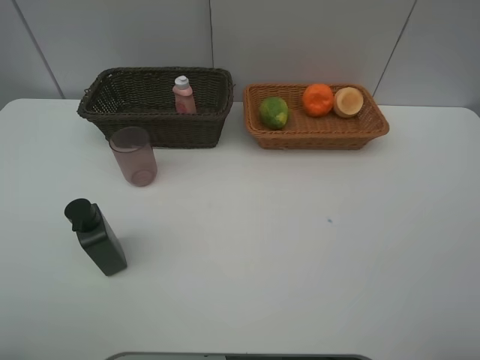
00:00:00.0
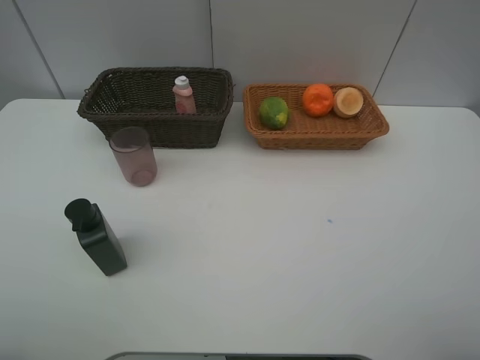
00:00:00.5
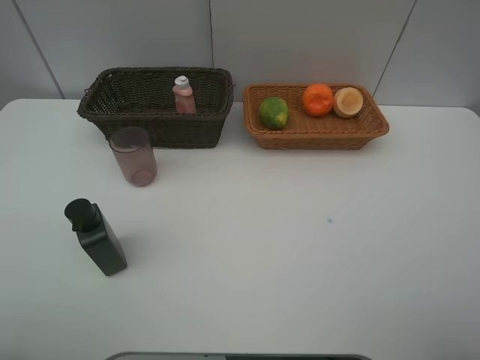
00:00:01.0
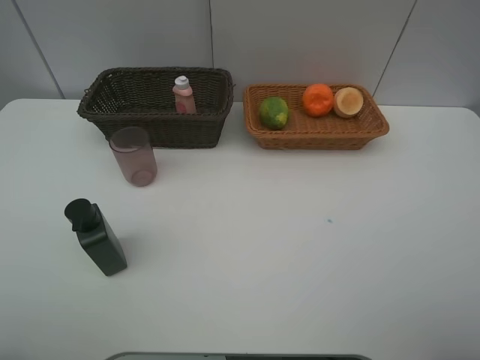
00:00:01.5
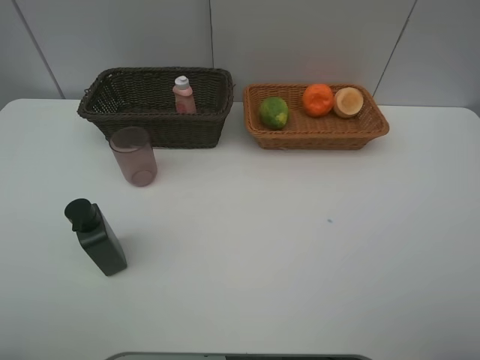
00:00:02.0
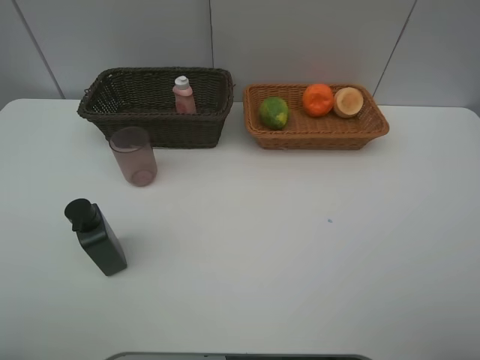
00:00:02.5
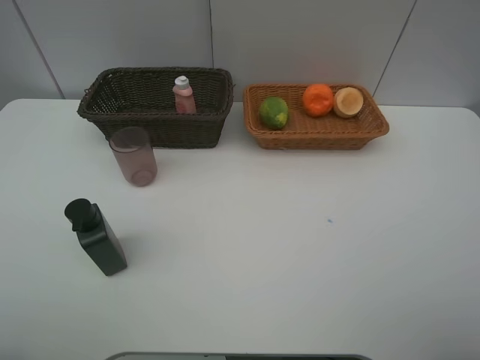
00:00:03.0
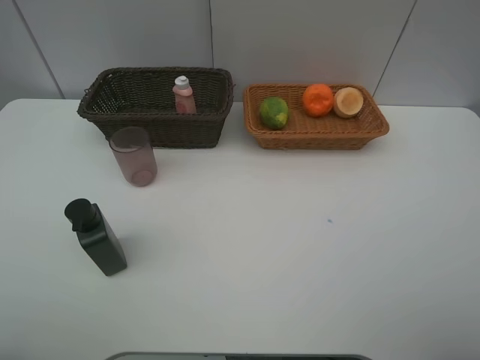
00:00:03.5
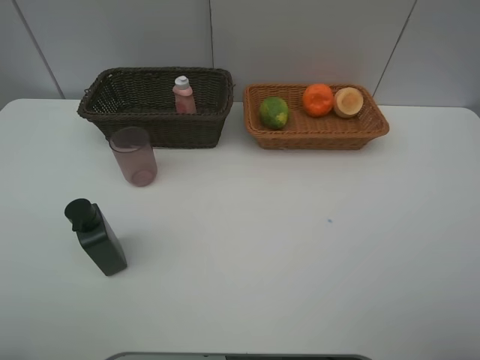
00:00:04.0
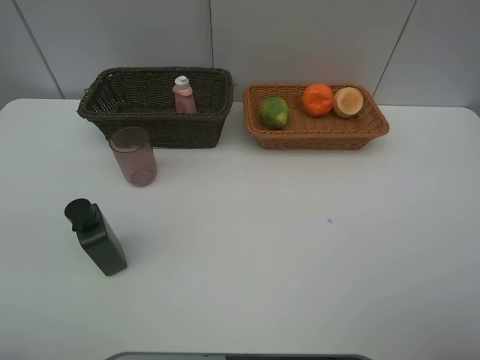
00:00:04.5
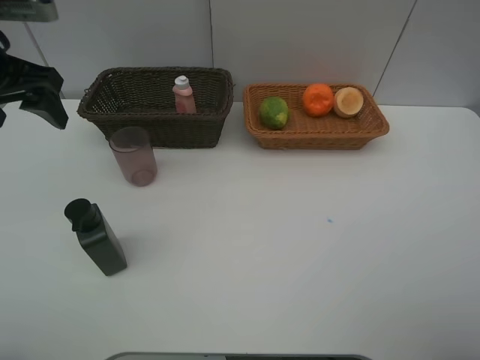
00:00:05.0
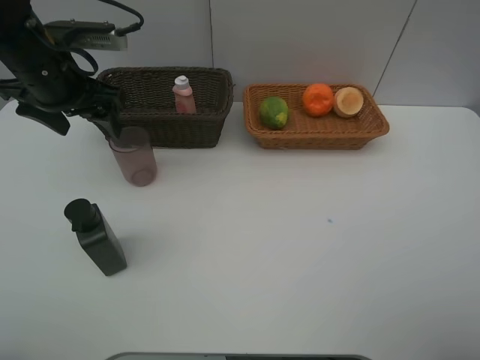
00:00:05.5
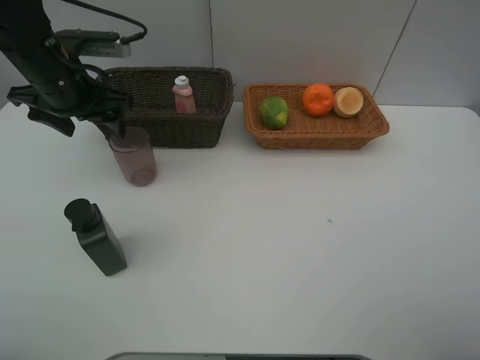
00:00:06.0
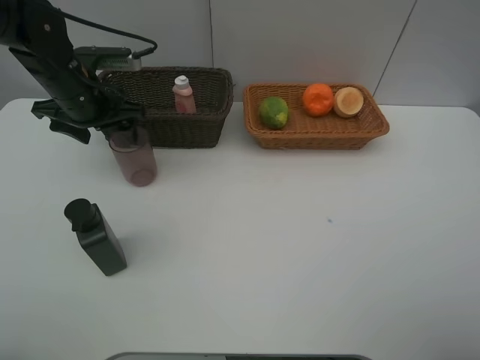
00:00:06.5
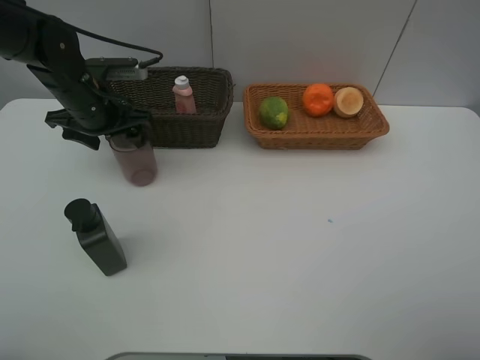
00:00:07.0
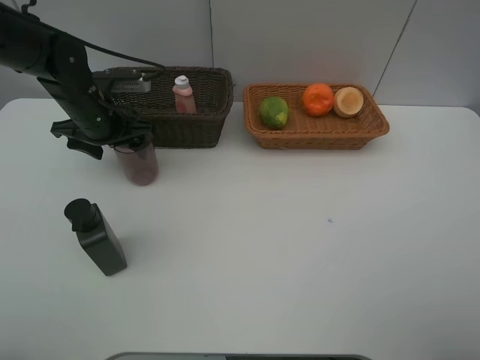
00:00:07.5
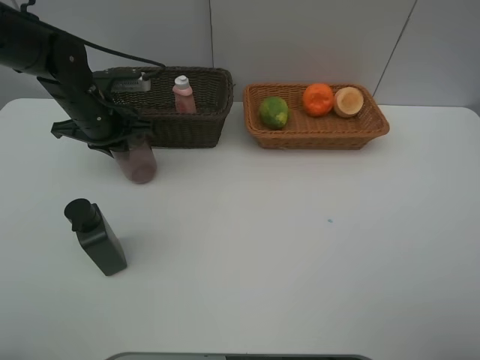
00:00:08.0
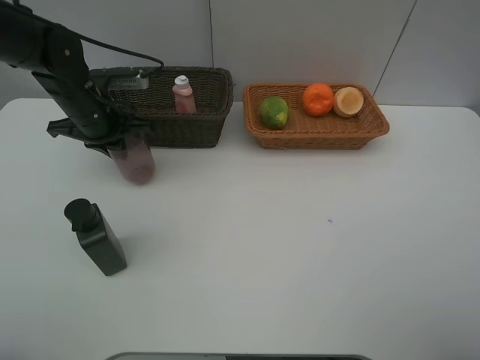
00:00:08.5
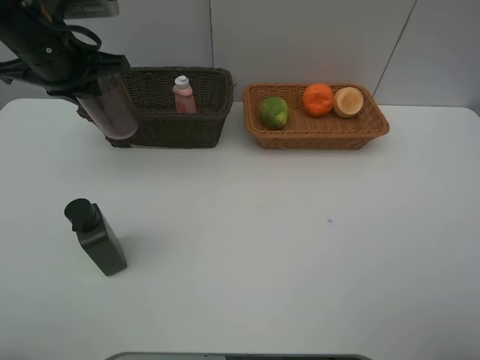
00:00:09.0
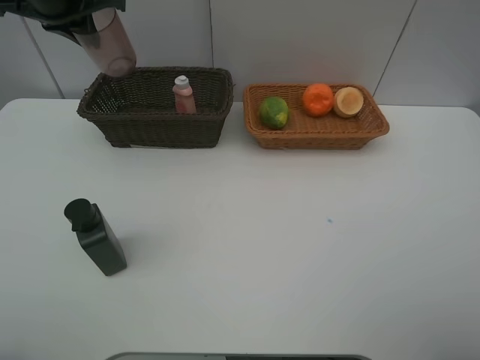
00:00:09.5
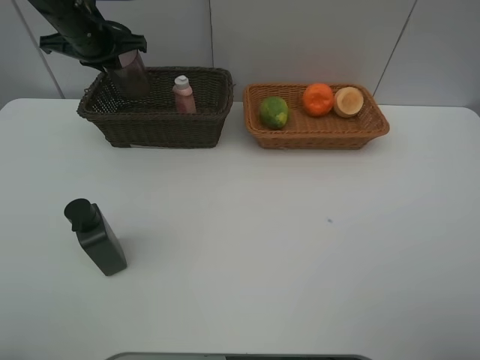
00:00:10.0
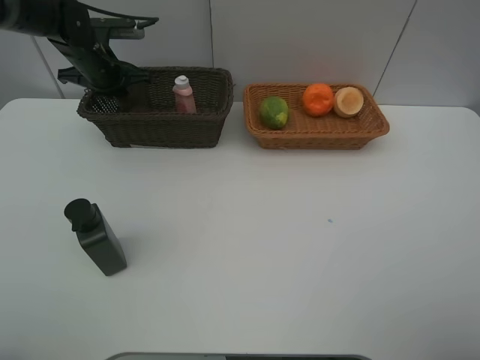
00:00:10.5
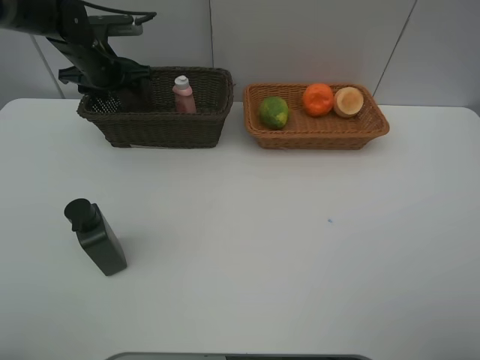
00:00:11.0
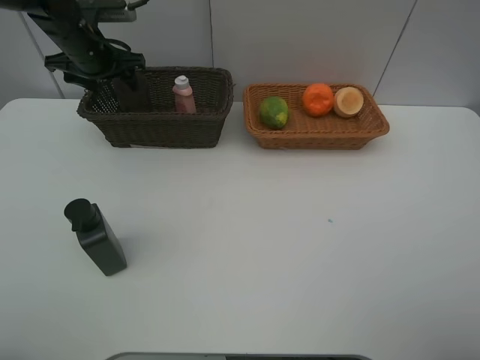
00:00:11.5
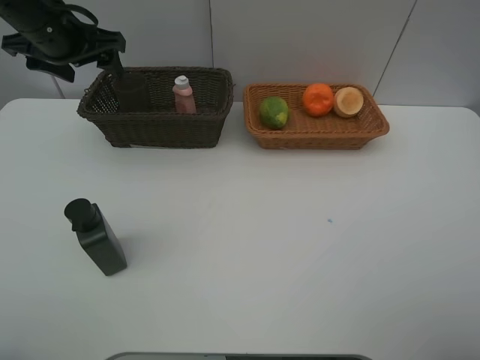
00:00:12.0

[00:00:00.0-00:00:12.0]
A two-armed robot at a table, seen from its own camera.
Task of the whole recording: place multiple objects separately in different baskets.
00:00:04.0 to 00:00:06.0: The left gripper heads forward, covering about 35 cm.
00:00:06.0 to 00:00:08.0: The left gripper shifts about 5 cm downward, and closes its fingers.
00:00:08.0 to 00:00:10.0: The left gripper shifts some 10 cm upward and forward.
00:00:10.0 to 00:00:12.0: The left gripper moves backward, roughly 10 cm, and opens.

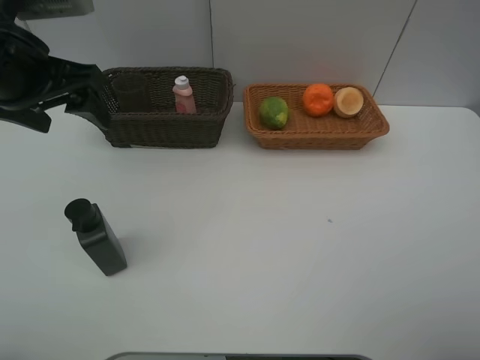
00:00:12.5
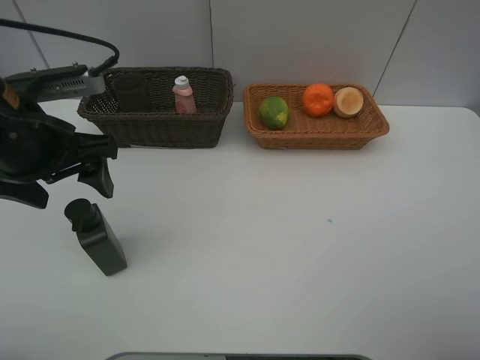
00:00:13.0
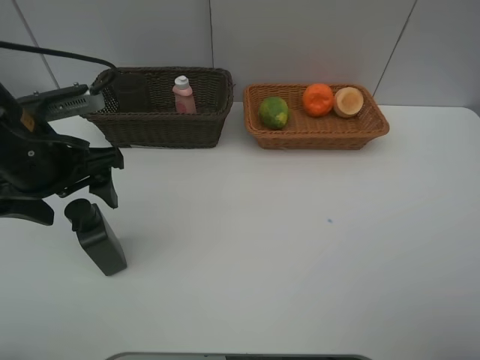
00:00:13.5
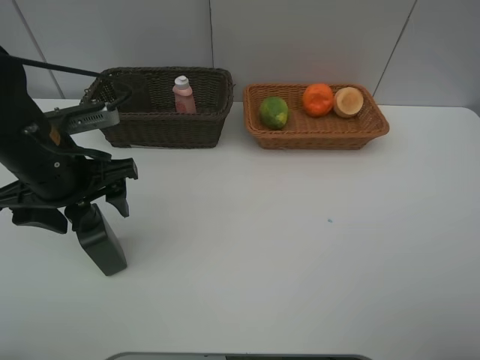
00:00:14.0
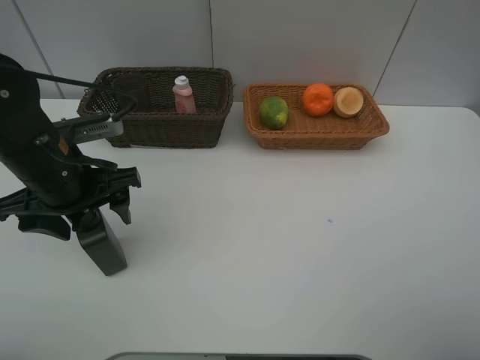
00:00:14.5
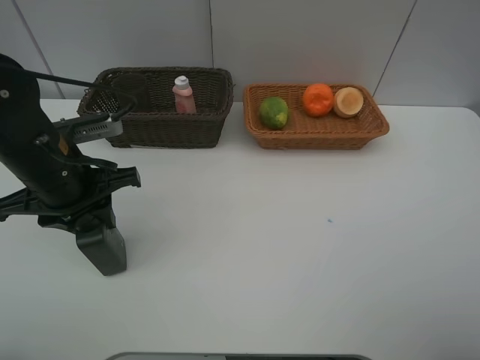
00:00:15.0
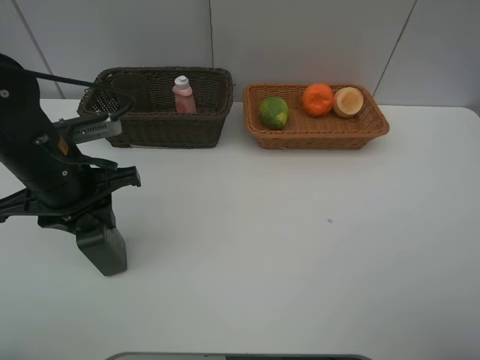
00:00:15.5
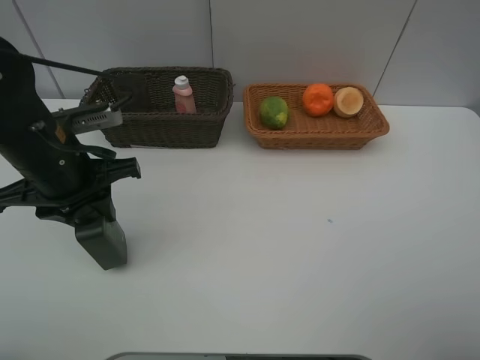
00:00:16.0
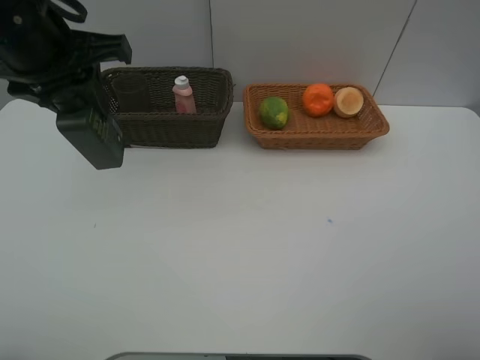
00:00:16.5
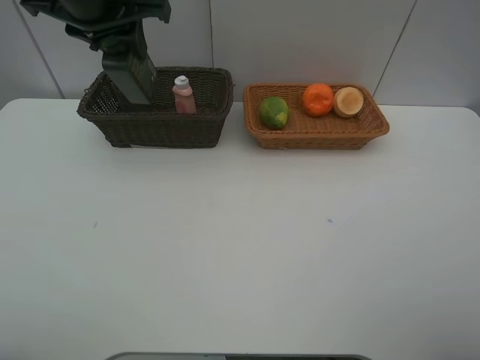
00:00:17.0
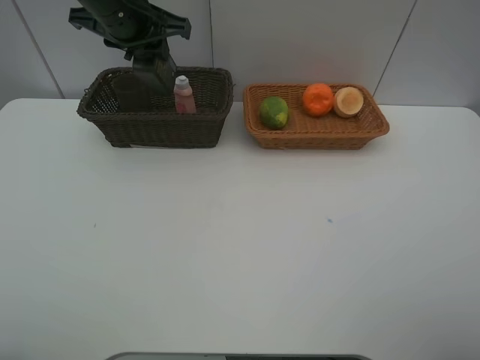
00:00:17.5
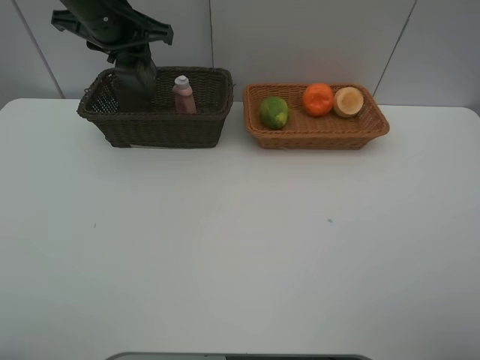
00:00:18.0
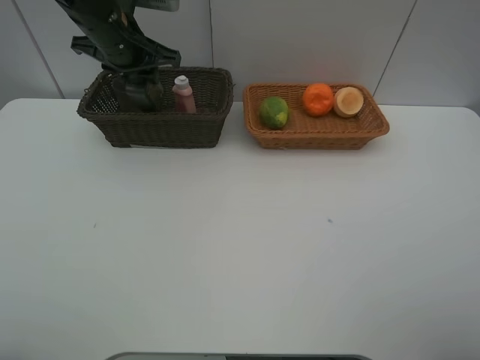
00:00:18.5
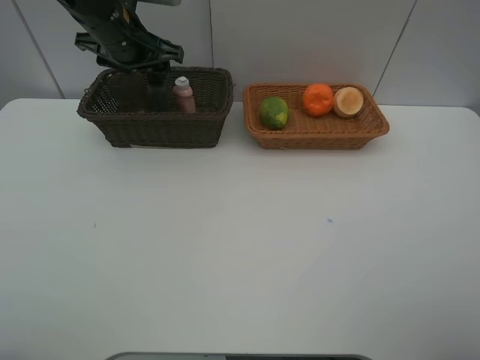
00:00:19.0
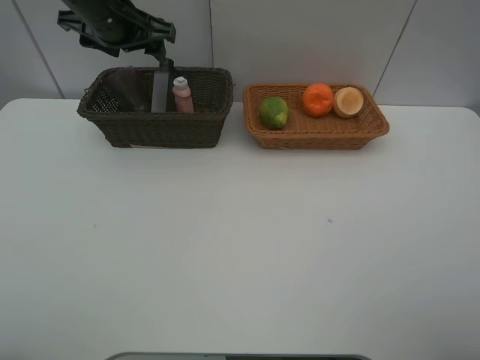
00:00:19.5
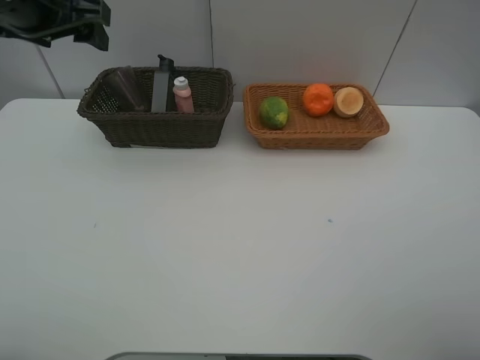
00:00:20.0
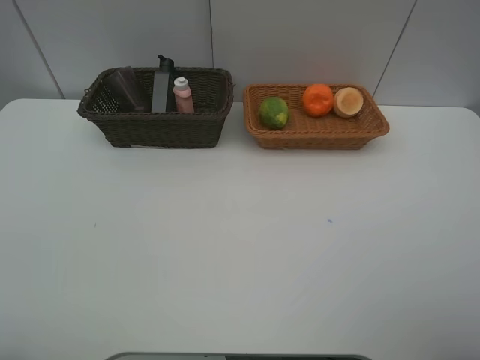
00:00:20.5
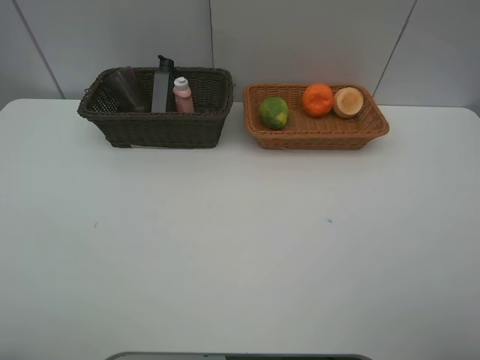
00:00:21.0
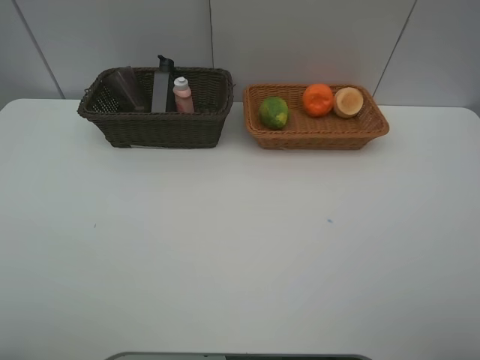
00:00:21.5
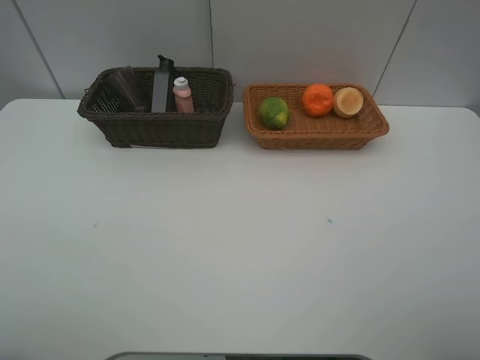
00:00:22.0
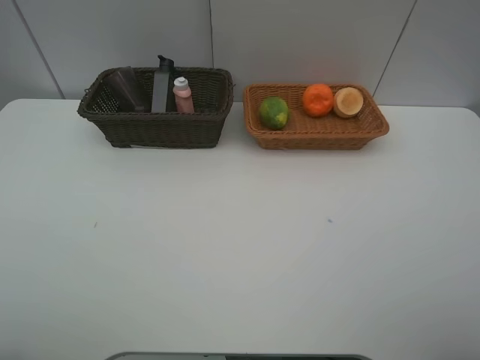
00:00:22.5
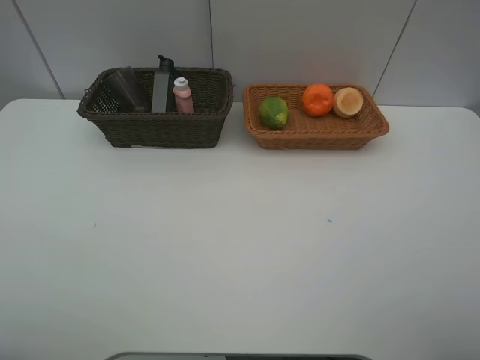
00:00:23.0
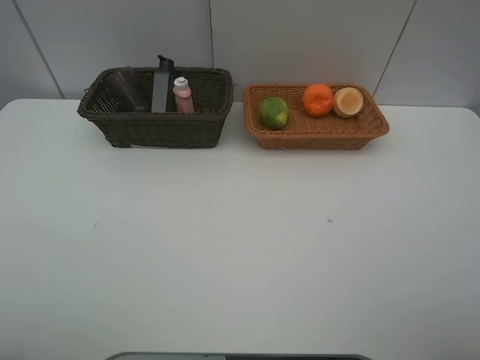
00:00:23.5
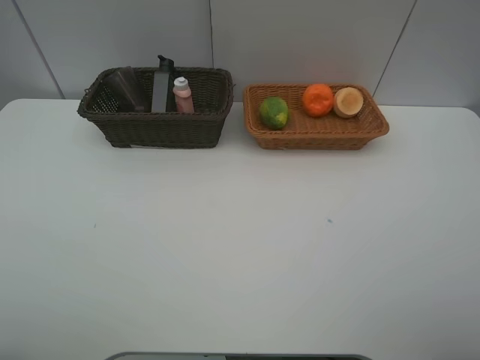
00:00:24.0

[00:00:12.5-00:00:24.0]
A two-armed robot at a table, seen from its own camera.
Task of the whole recording: place multiple objects separately in different baskets.
00:00:12.5 to 00:00:14.5: The left gripper heads downward, covering some 10 cm.
00:00:14.5 to 00:00:16.5: The left gripper shifts about 15 cm upward, and closes.
00:00:16.5 to 00:00:18.5: The left gripper heads forward and downward, covering some 15 cm.
00:00:18.5 to 00:00:20.0: The left gripper is displaced backward, upward and to the left by roughly 15 cm, and opens up.
00:00:20.0 to 00:00:22.0: The left gripper goes roughly 30 cm backward.
